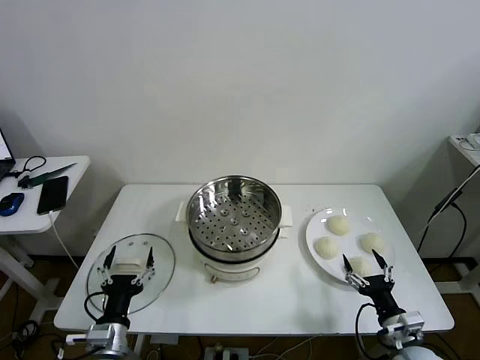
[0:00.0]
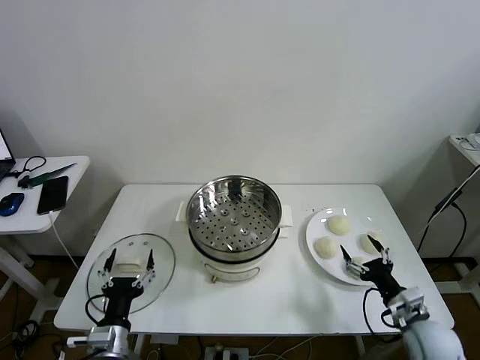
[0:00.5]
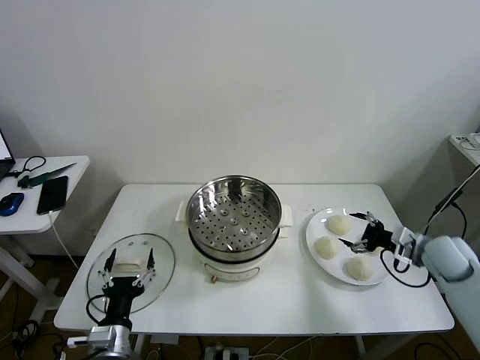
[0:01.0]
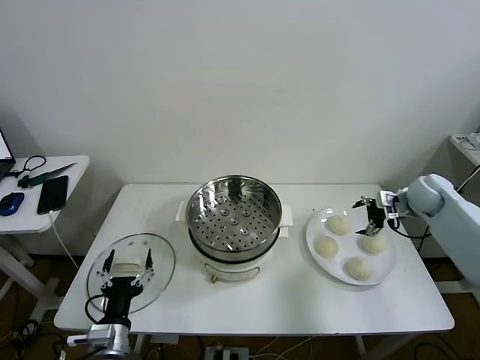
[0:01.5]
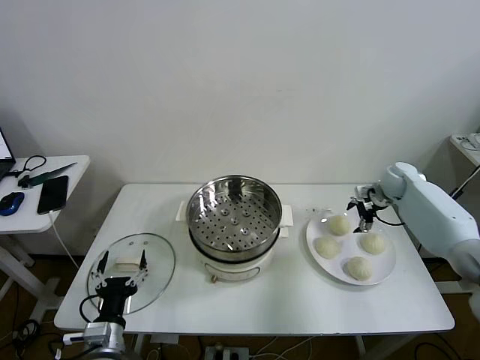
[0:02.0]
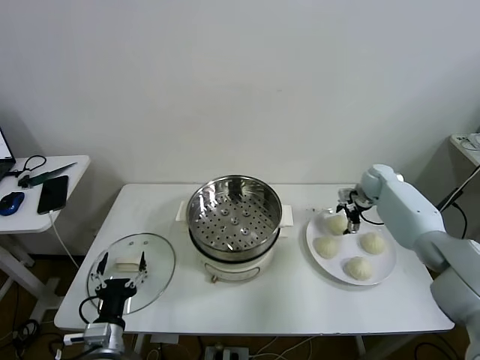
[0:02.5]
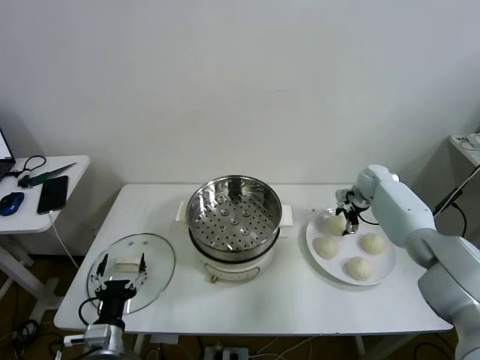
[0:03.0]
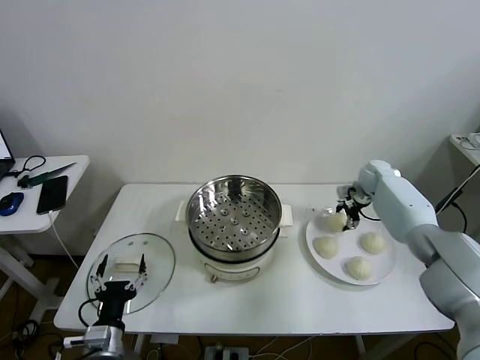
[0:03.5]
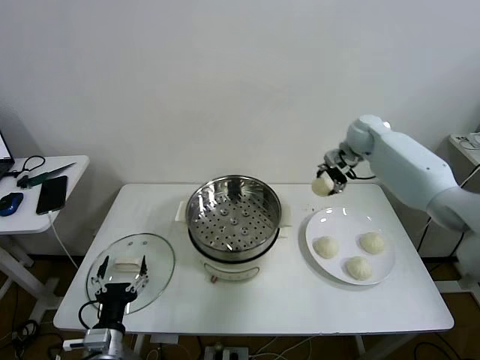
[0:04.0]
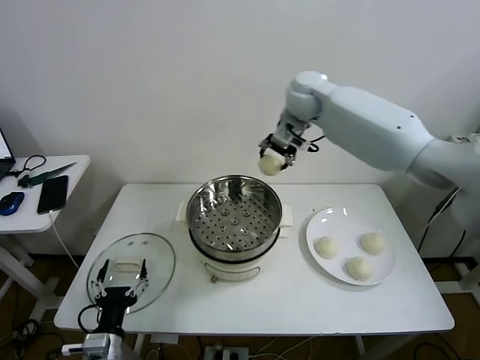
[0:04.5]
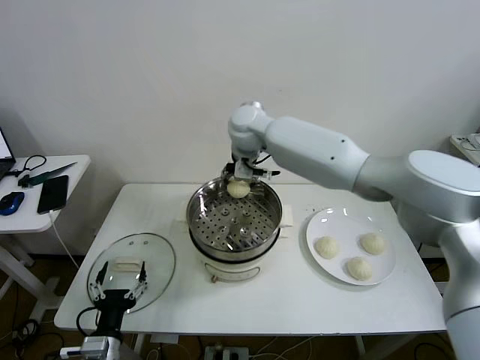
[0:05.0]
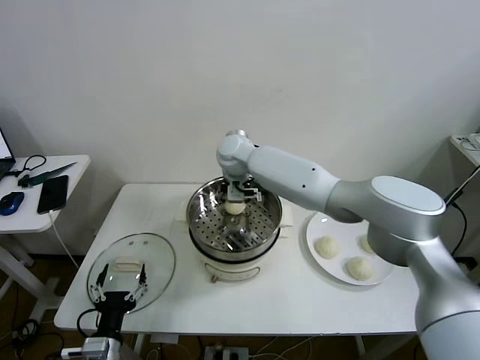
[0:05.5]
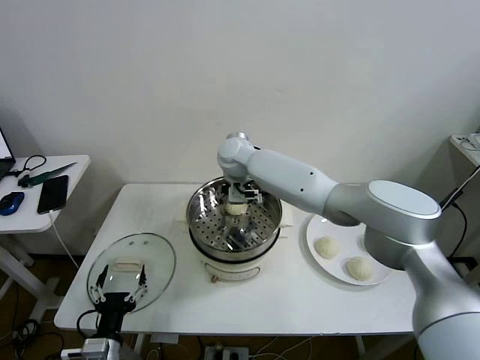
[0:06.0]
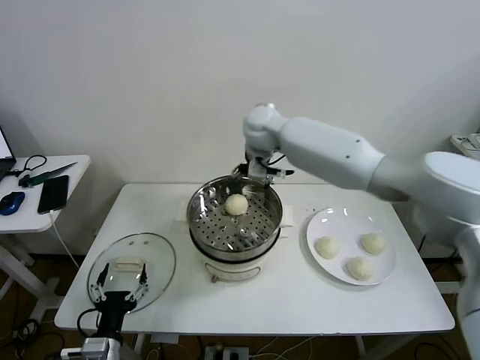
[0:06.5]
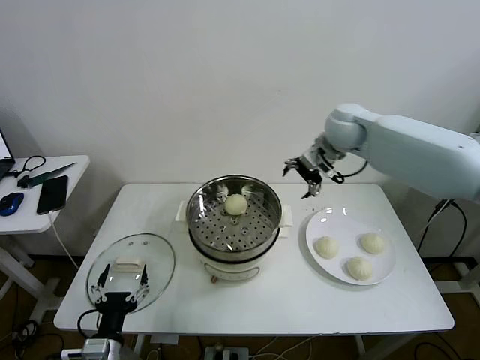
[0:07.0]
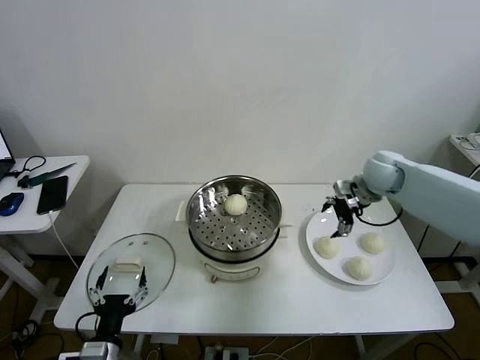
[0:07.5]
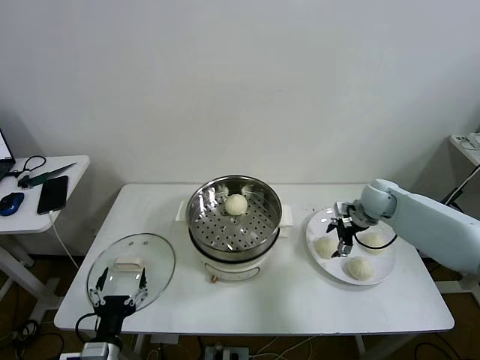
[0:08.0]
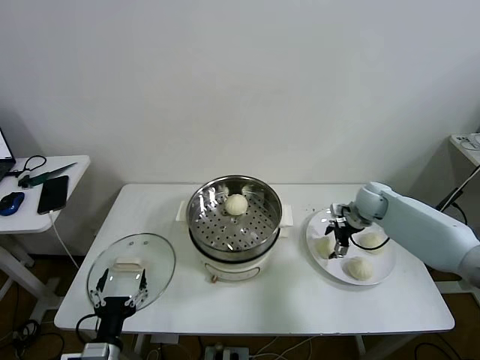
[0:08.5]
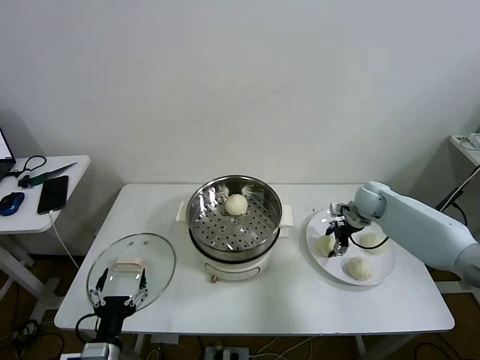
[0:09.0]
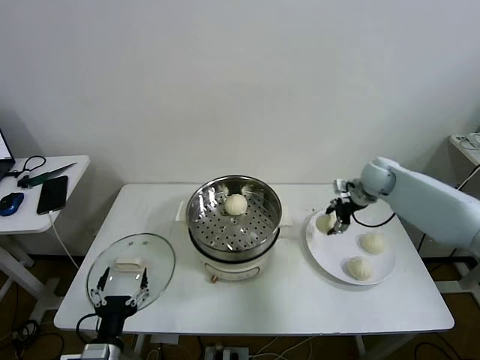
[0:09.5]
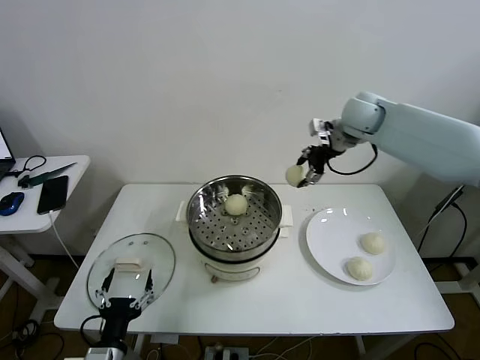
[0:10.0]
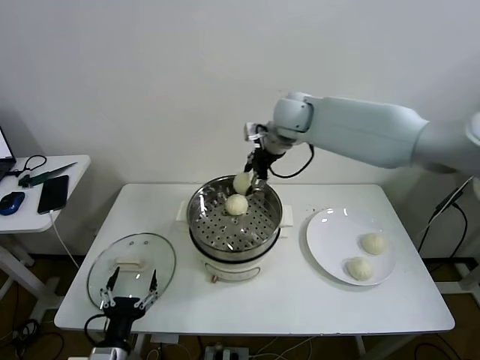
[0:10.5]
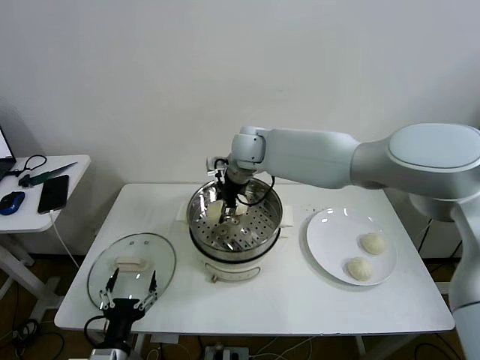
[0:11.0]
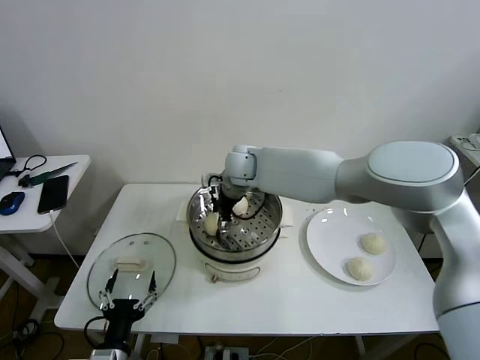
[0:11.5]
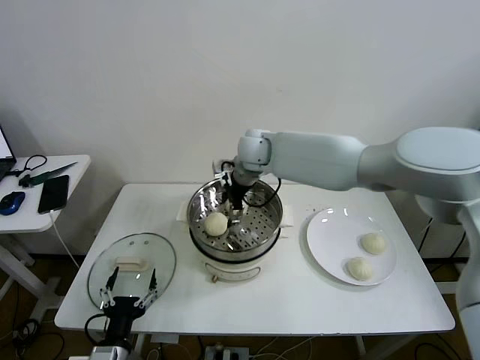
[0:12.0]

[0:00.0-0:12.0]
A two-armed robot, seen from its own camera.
Task of the whole recording: take steamed baozi put them in steamer then cover it.
Step, 0:00.0 to 0:03.0: Grasp the baozi in the plate with right gripper.
Step, 0:03.5 to 0:06.0: Place the baozi on the steamer with right gripper.
Step, 0:06.5 to 0:09.0: Grasp the baozi in the plate with right gripper.
Step, 0:09.5 to 0:11.5: Place the baozi on the steamer with right gripper.
0:02.0 to 0:04.0: The right gripper shifts roughly 20 cm upward and to the left, and closes up.
0:04.0 to 0:06.0: The right gripper travels to the left by some 30 cm, and opens.
0:06.0 to 0:08.0: The right gripper shifts approximately 35 cm to the right.
0:08.0 to 0:10.0: The right gripper heads upward and to the left, covering roughly 25 cm, and closes up.
0:10.0 to 0:12.0: The right gripper shifts approximately 20 cm to the left, and opens.

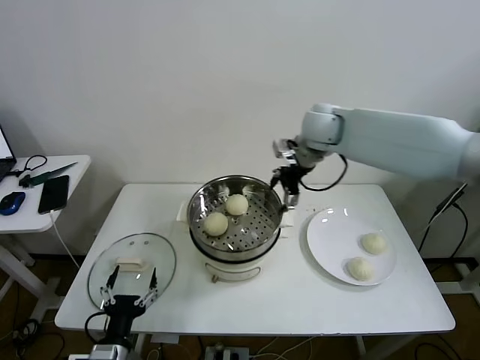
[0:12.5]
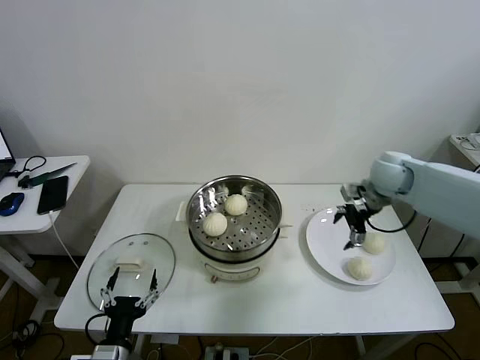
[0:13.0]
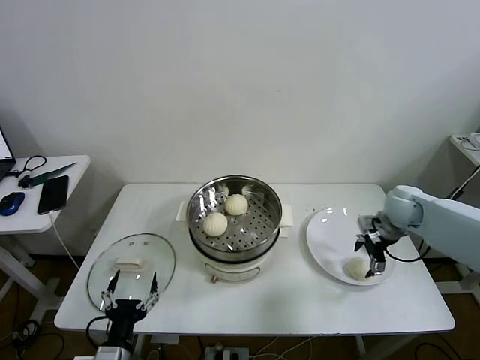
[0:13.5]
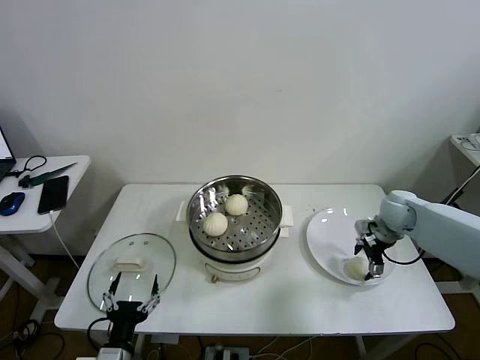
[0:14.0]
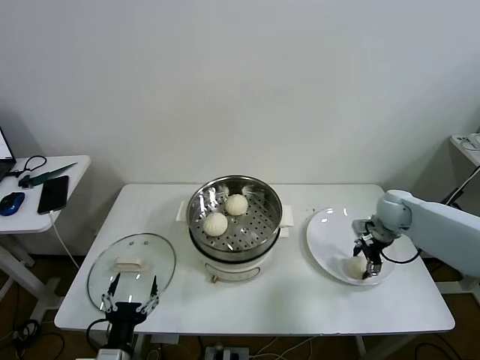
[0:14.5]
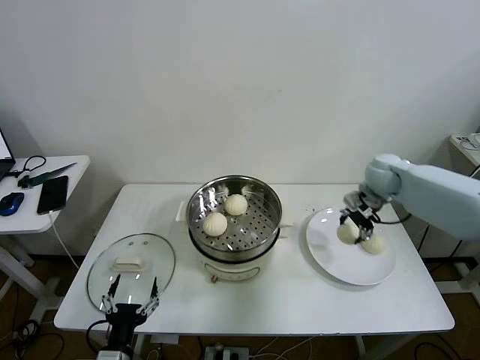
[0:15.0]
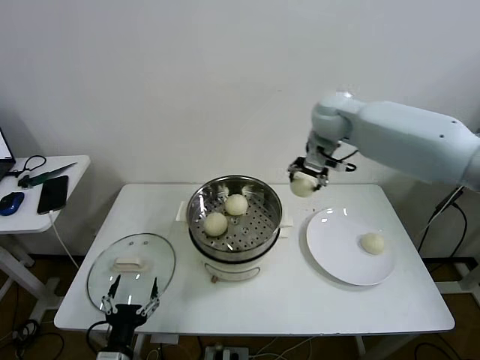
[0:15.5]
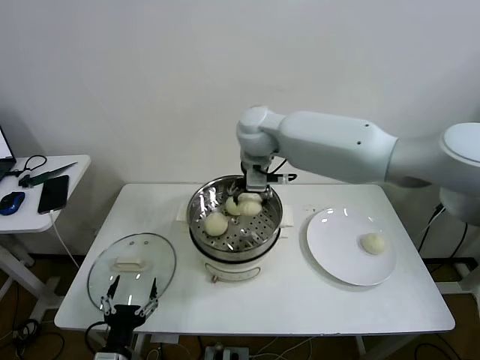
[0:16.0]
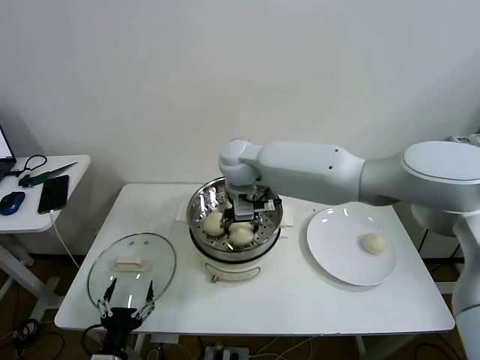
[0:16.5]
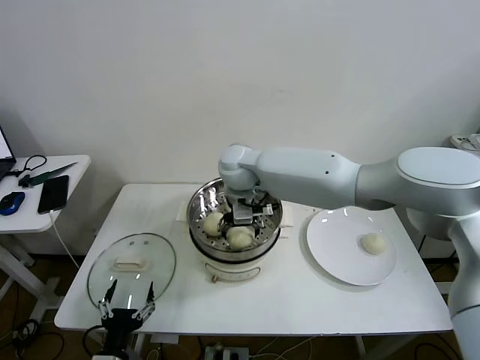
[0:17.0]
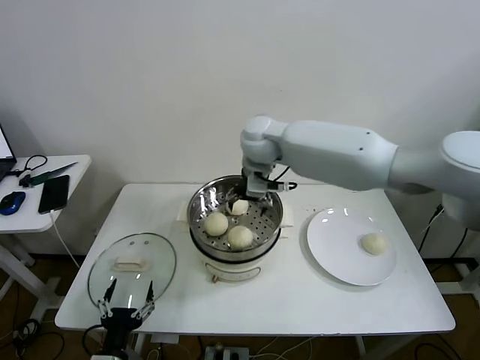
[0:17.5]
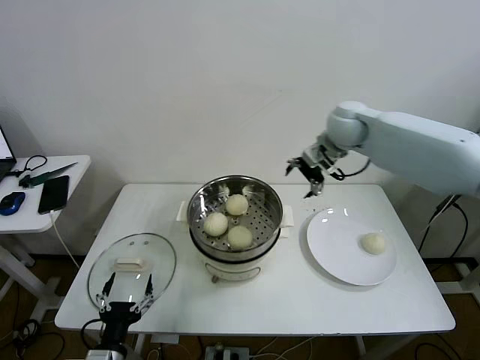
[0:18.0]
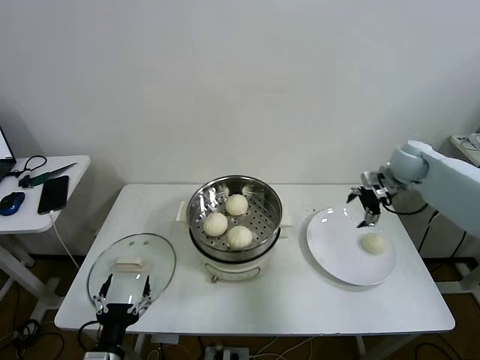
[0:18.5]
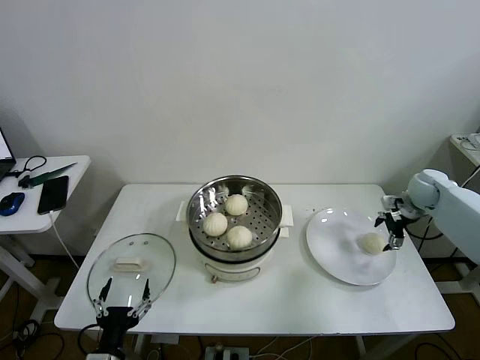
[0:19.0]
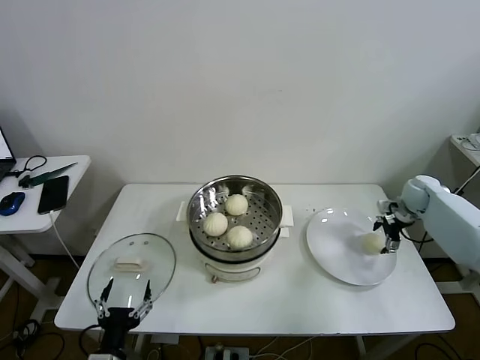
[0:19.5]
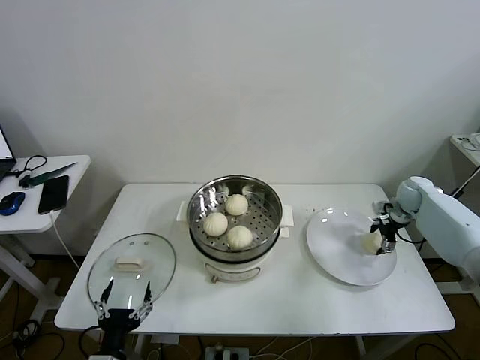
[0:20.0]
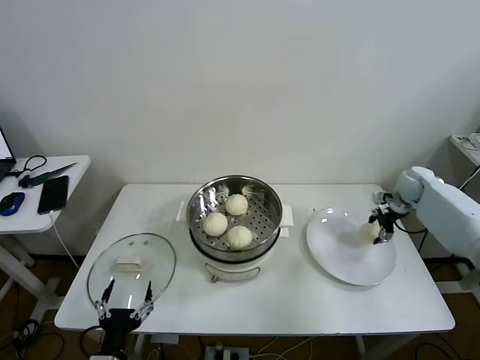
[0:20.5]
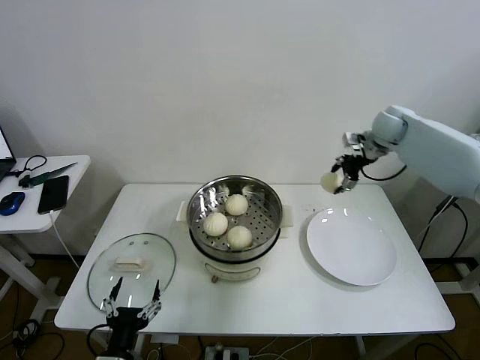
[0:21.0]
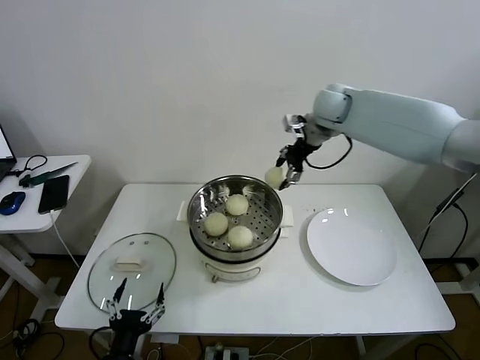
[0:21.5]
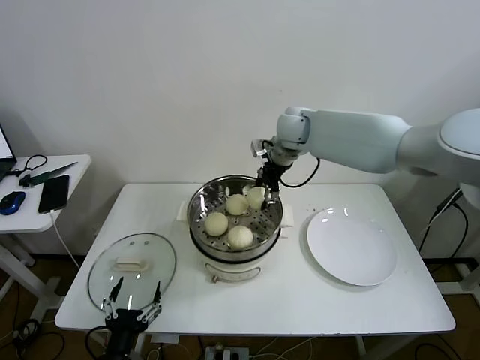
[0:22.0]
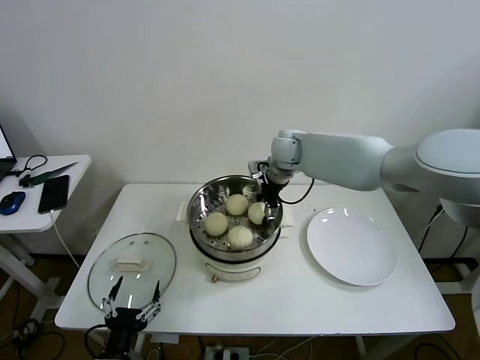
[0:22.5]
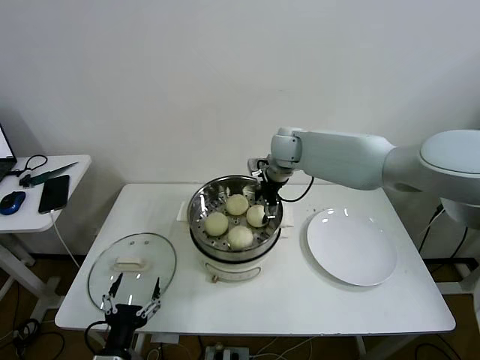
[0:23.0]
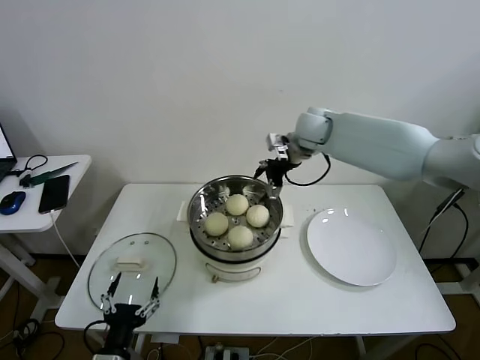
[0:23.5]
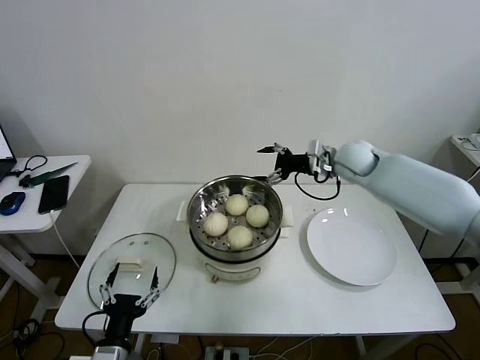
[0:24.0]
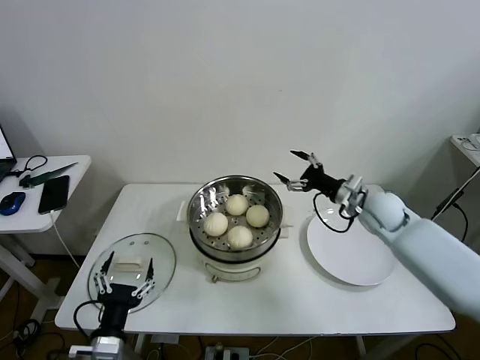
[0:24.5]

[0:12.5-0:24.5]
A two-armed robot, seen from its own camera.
Task of the whole recording: take steamed baozi put them in steamer then cover it.
Step, 0:12.5 to 0:14.5: Grasp the baozi in the plate with right gripper.
Step, 0:15.0 to 0:17.0: Place the baozi on the steamer with right gripper.
Step, 0:17.5 to 0:20.0: Grasp the baozi in the plate with right gripper.
Step, 0:20.5 to 0:23.0: Place the baozi on the steamer with right gripper.
0:12.5 to 0:14.5: The right gripper goes approximately 30 cm downward and to the right, and closes.
0:14.5 to 0:16.5: The right gripper heads to the left, covering some 40 cm.
0:16.5 to 0:18.5: The right gripper moves to the right, approximately 40 cm, and opens.
0:18.5 to 0:20.5: The right gripper moves downward and to the right, some 10 cm, and closes.
0:20.5 to 0:22.5: The right gripper is displaced to the left by some 35 cm.
0:22.5 to 0:24.5: The right gripper is displaced to the right, backward and downward by about 25 cm, and opens its fingers.

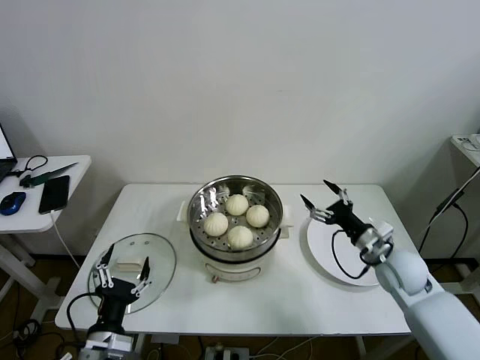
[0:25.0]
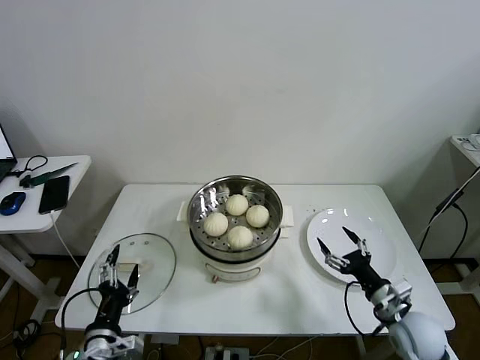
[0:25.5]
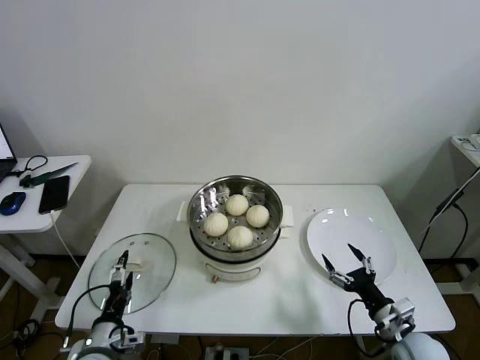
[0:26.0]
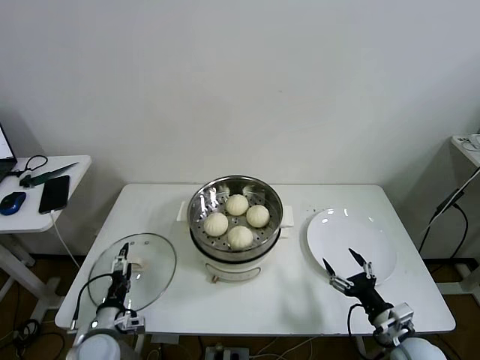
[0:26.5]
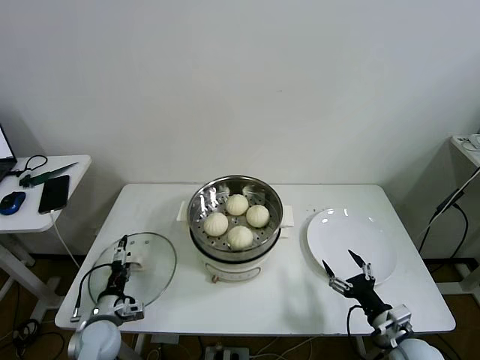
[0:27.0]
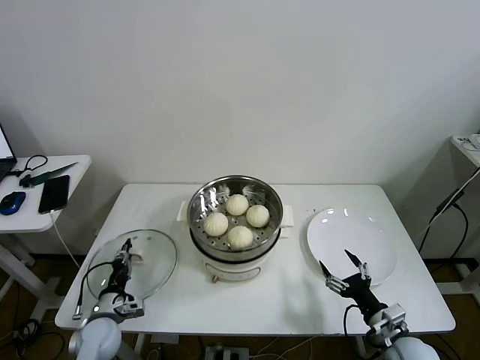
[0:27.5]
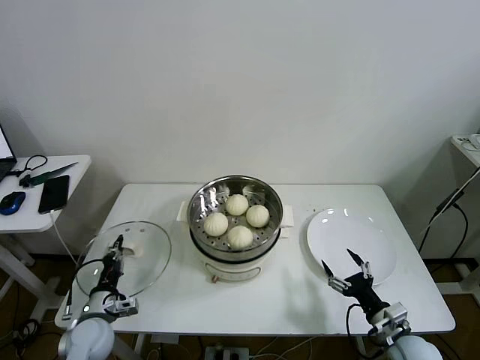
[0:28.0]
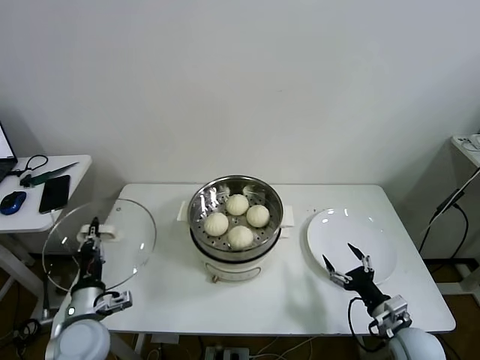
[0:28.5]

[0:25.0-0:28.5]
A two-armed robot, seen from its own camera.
Task of the whole recording: take steamed baozi put them in steamer then cover it.
Step, 0:25.0 to 0:27.5: Grasp the pot lid with left gripper.
0:25.0 to 0:27.0: The right gripper moves backward and downward, roughly 20 cm. The left gripper heads downward, forward and to the left, covering about 20 cm.
0:27.0 to 0:28.5: The left gripper travels upward by some 10 cm, and closes its fingers.
